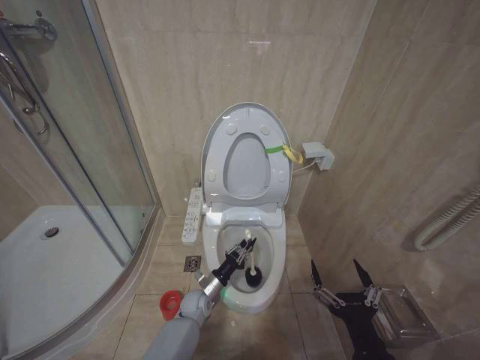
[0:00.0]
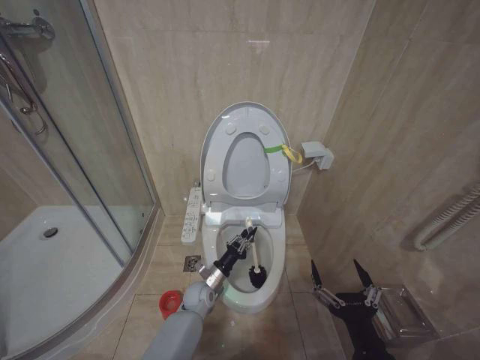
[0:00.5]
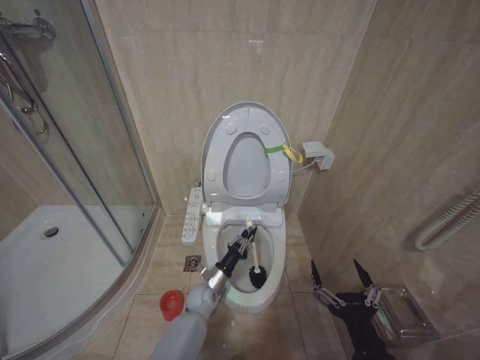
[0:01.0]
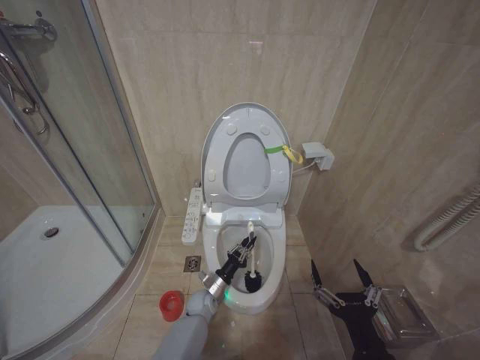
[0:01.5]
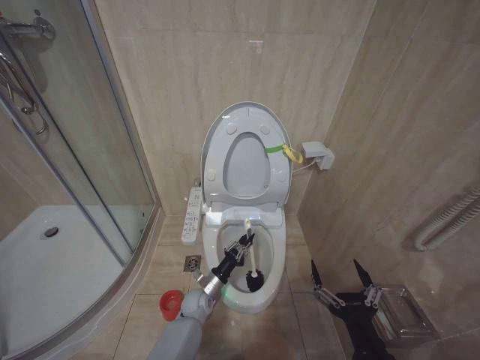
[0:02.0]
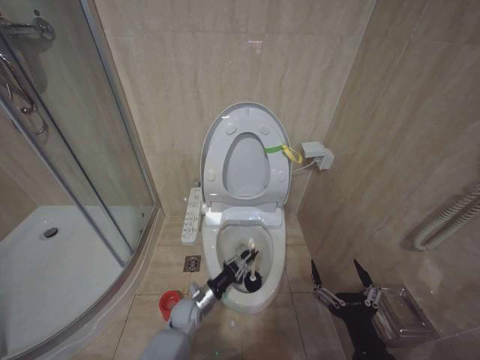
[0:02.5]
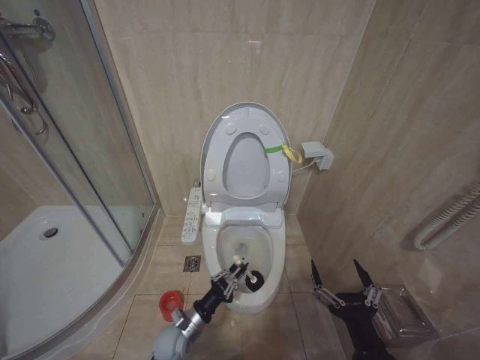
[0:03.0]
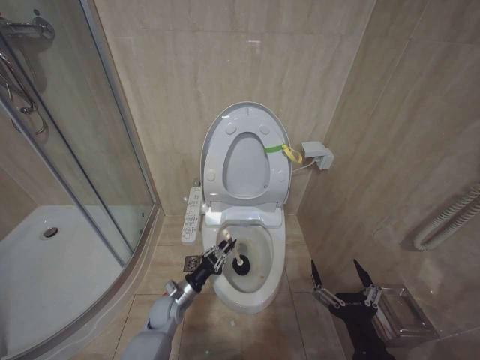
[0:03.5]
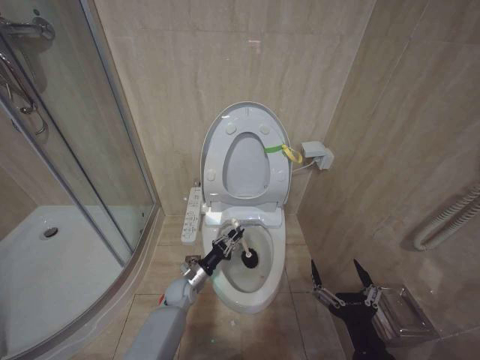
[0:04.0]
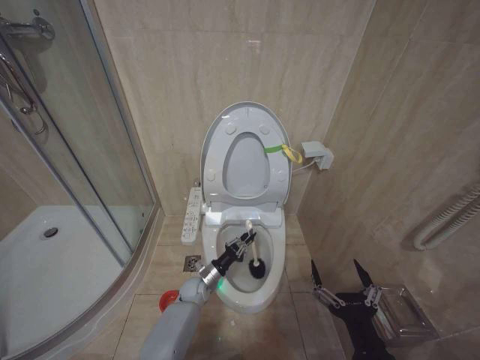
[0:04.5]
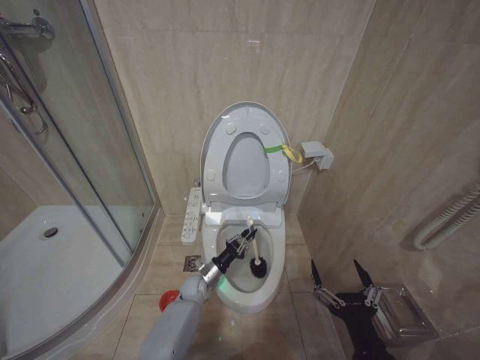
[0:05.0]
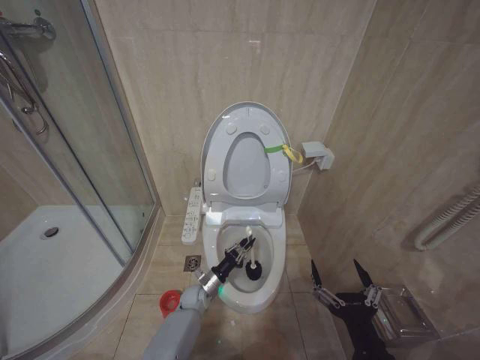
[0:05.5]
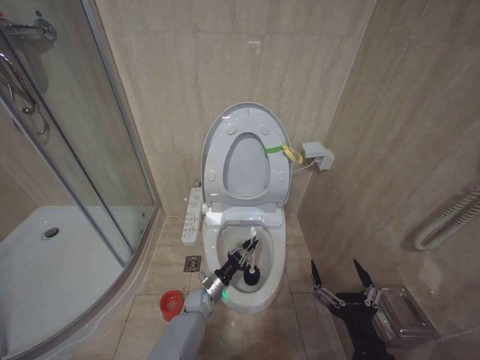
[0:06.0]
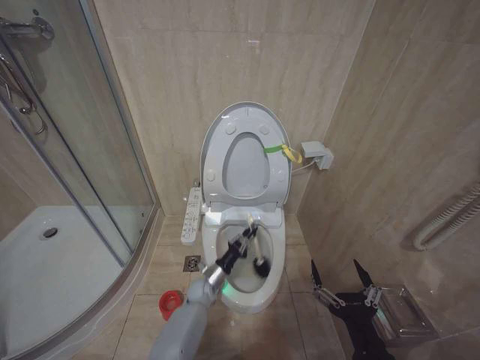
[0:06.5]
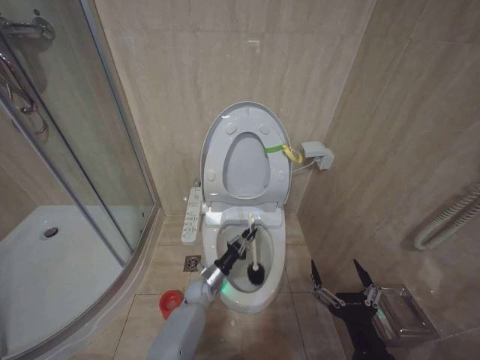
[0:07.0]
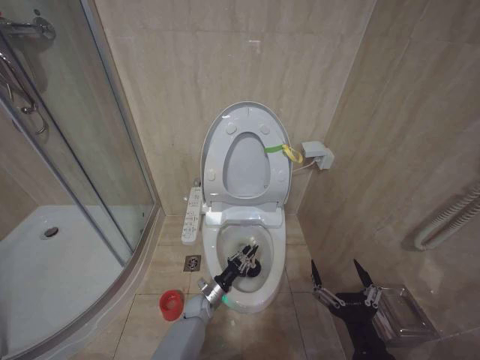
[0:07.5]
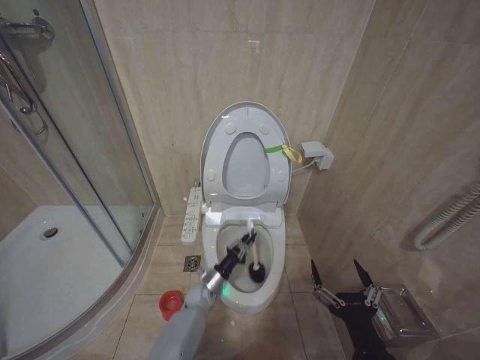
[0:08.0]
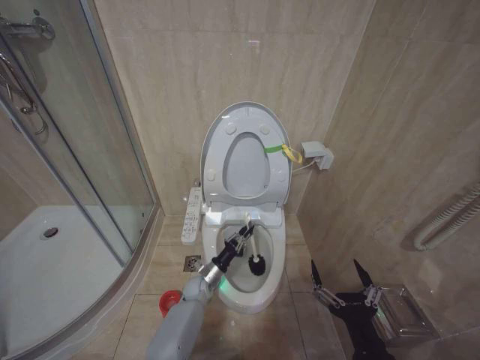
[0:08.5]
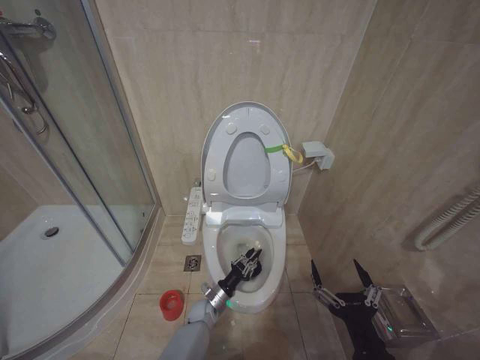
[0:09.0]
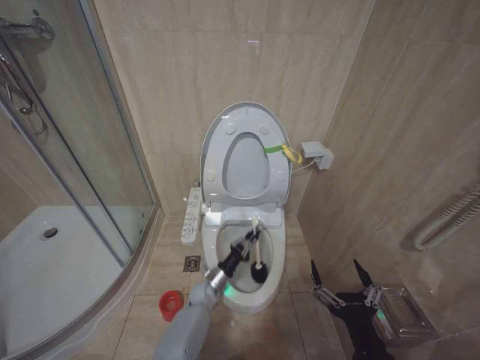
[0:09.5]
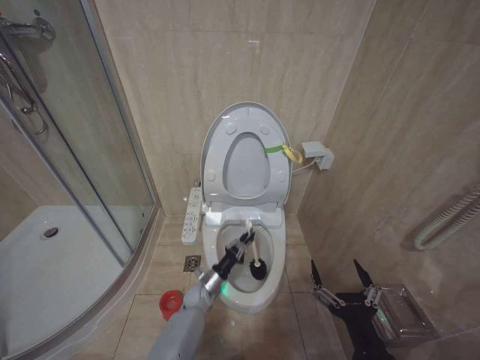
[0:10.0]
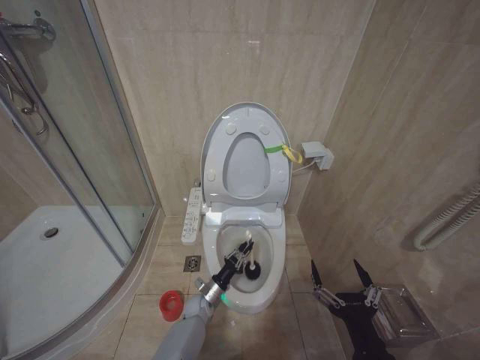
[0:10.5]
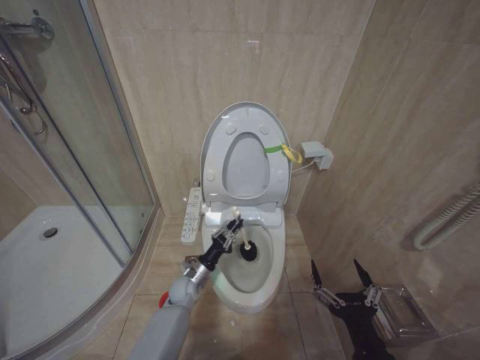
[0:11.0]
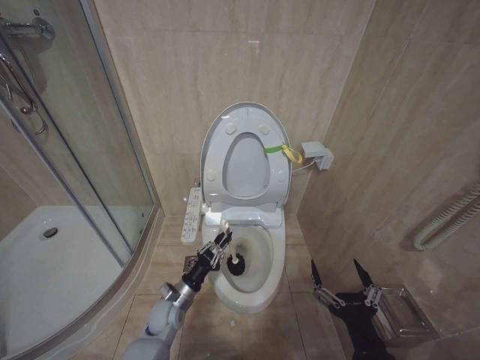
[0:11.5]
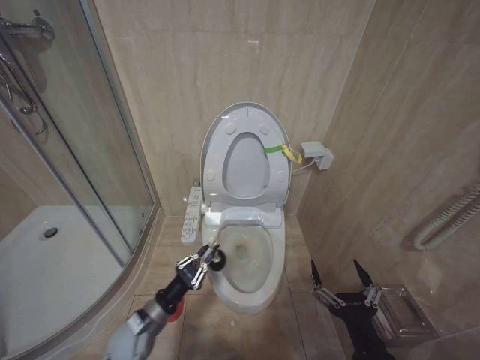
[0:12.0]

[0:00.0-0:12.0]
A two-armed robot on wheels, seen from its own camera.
Task of the whole recording: Open the toilet lid, clean the toilet bowl with a toilet brush, close the toilet lid, and flush.
0:02.0 to 0:04.0: The left gripper moves to the left, about 5 cm, and goes backward and returns, some 10 cm each way.
0:04.0 to 0:06.0: The left gripper heads to the right, covering roughly 5 cm.
0:06.0 to 0:08.0: The left gripper moves up and down over some 5 cm, changing direction 2 times.
0:10.0 to 0:12.0: The left gripper travels upward, backward and to the left by some 20 cm.

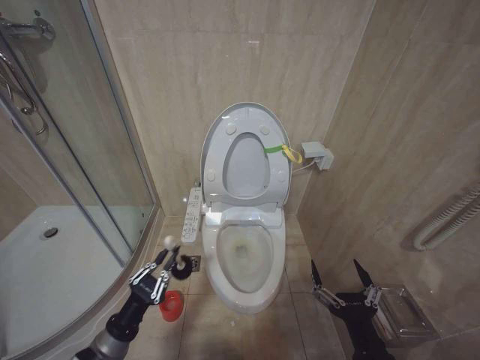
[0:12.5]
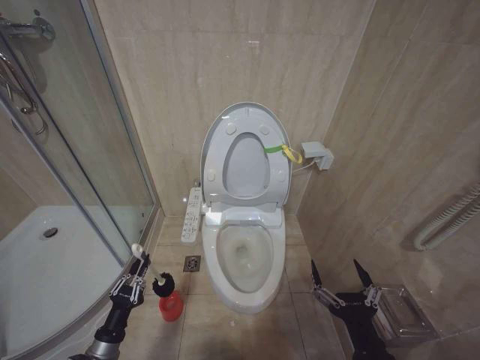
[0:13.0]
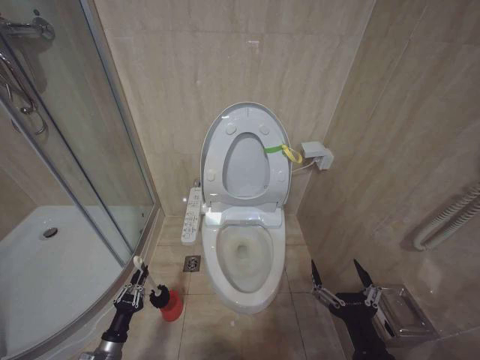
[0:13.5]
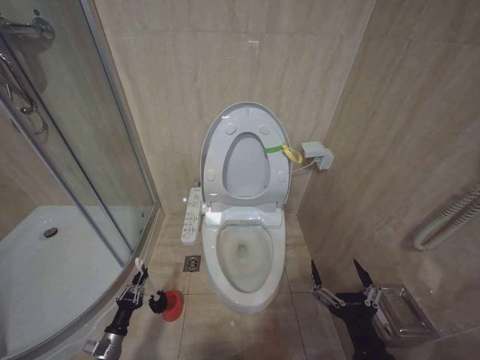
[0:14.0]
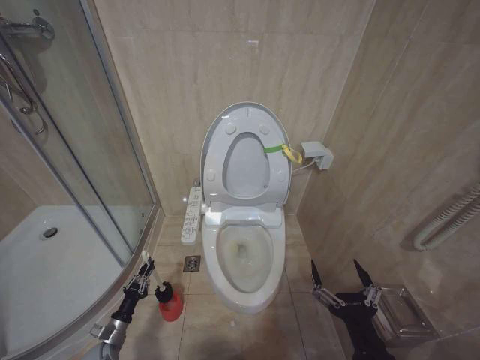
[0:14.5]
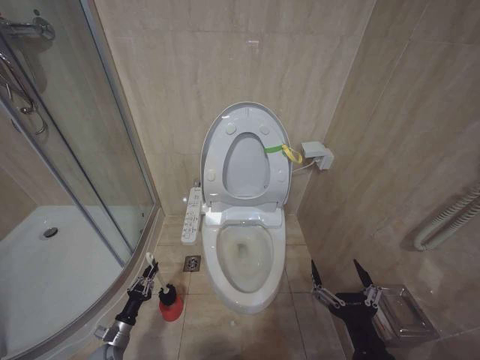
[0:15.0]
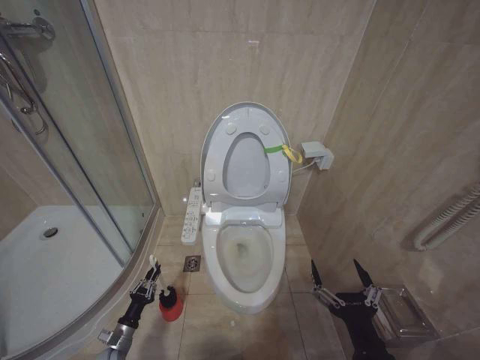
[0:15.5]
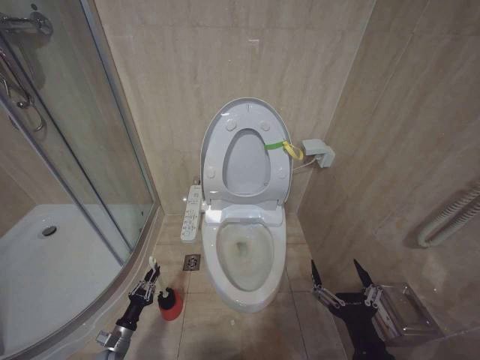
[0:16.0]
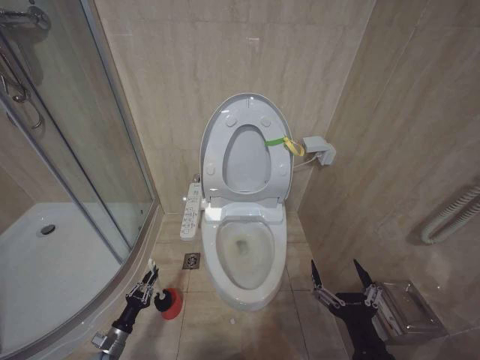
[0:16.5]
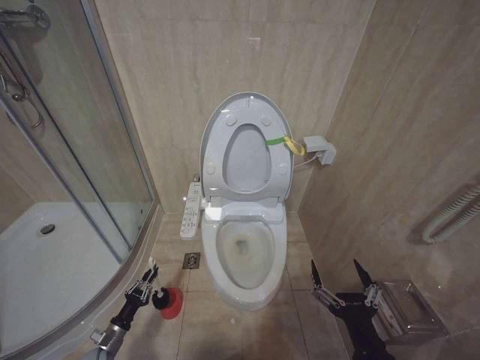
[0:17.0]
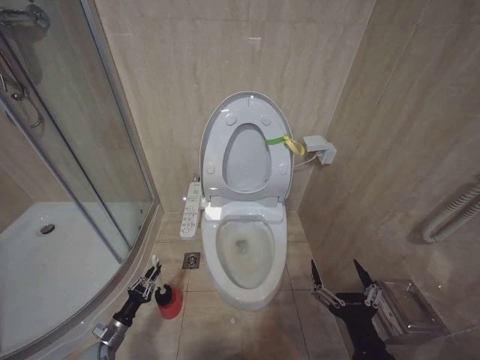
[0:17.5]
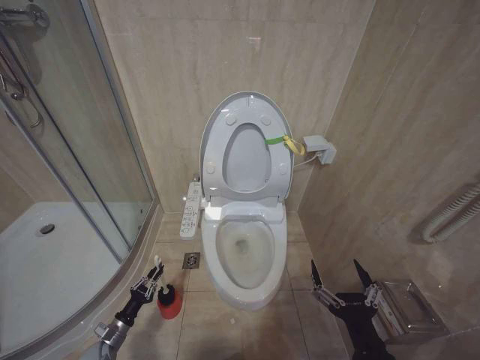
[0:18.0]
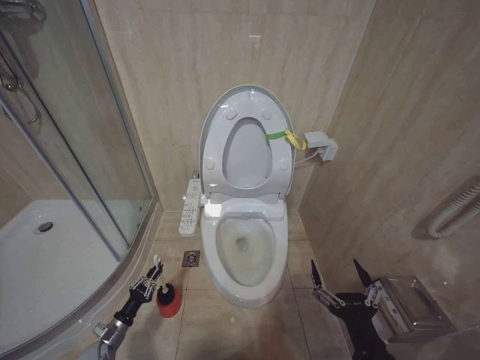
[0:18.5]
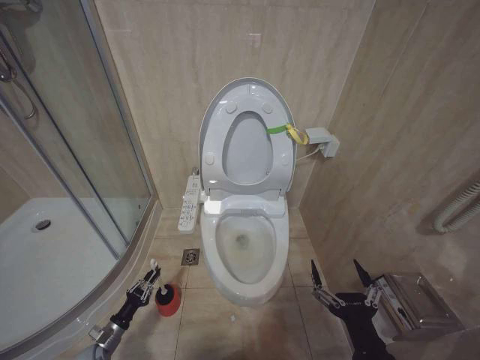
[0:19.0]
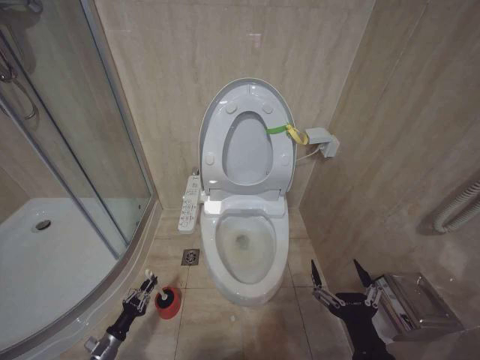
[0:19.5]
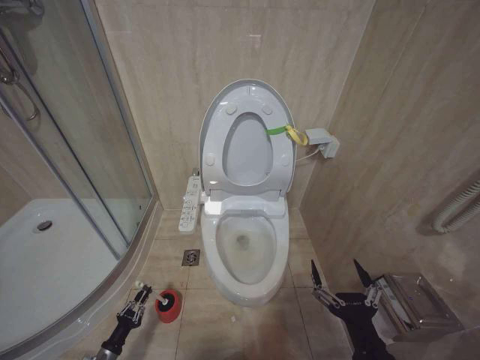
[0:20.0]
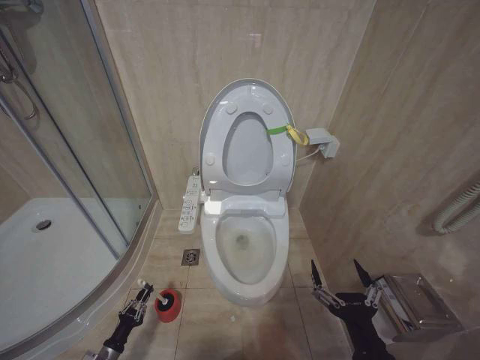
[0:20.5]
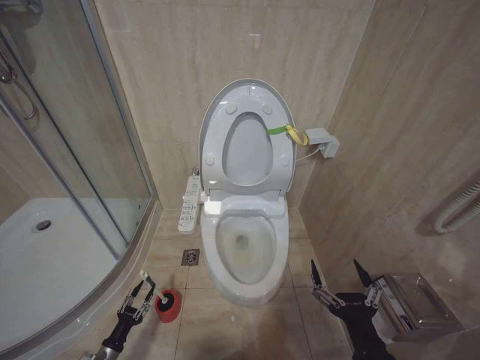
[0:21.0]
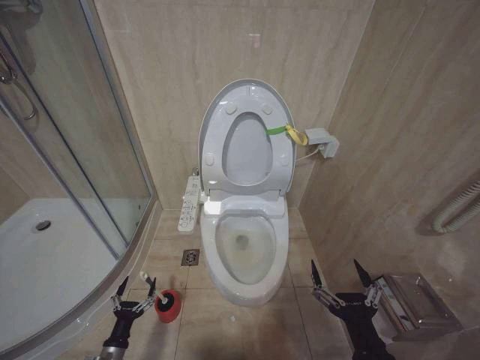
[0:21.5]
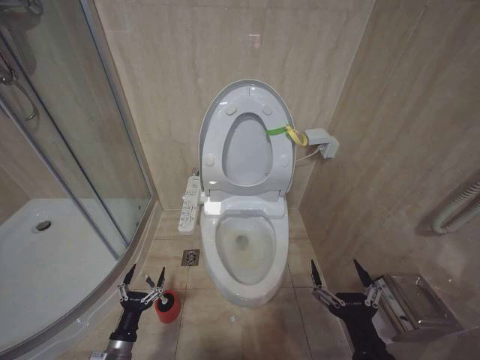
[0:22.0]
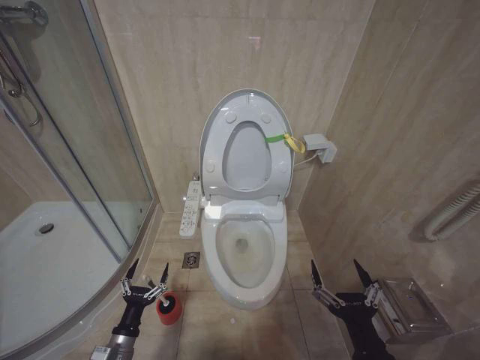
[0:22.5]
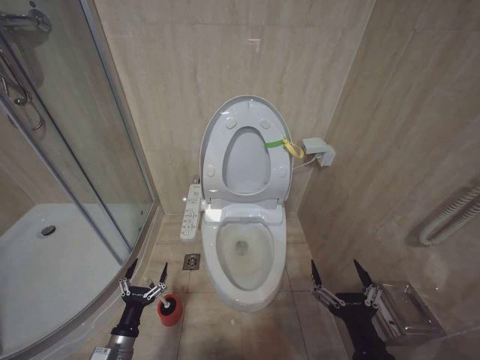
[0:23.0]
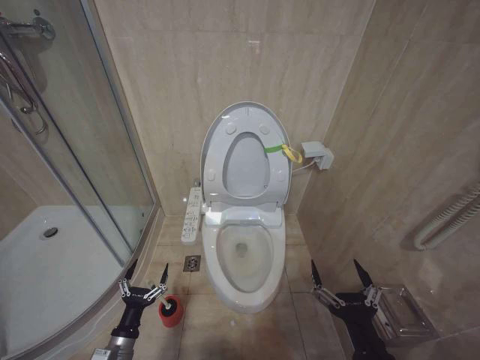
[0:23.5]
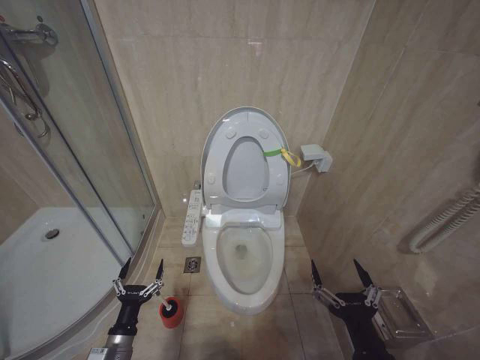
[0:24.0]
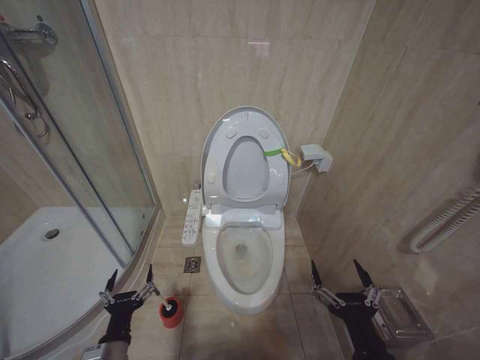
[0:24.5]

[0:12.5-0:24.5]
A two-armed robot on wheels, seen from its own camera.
Task of the whole recording: Open the toilet lid, clean the toilet bowl with a toilet brush, close the toilet lid, and flush.
0:12.5 to 0:14.5: The left gripper goes roughly 25 cm downward and to the left.
0:14.5 to 0:18.5: The grippers move only a little.
0:18.5 to 0:20.5: The left gripper travels backward by roughly 5 cm.
0:20.5 to 0:22.5: The left gripper moves upward and to the right, some 20 cm, and opens its fingers.
0:22.5 to 0:24.5: The left gripper heads upward, covering some 10 cm.

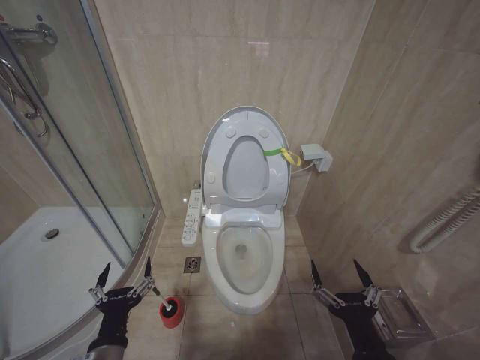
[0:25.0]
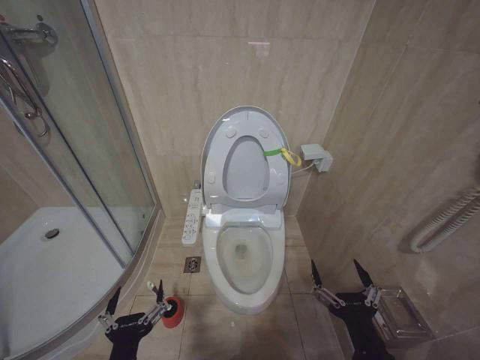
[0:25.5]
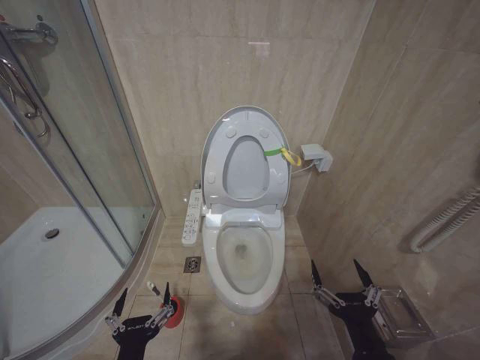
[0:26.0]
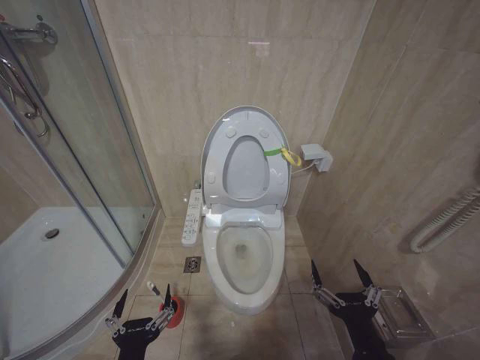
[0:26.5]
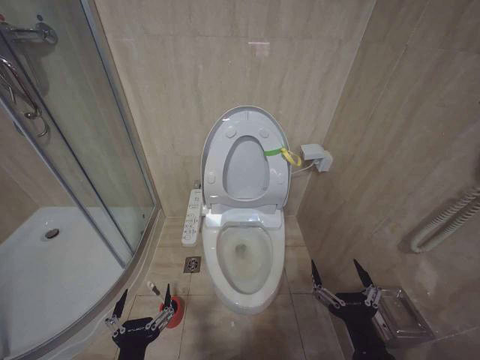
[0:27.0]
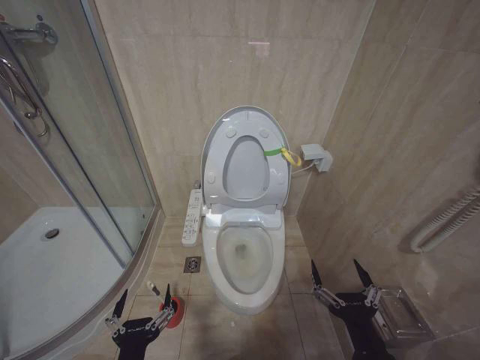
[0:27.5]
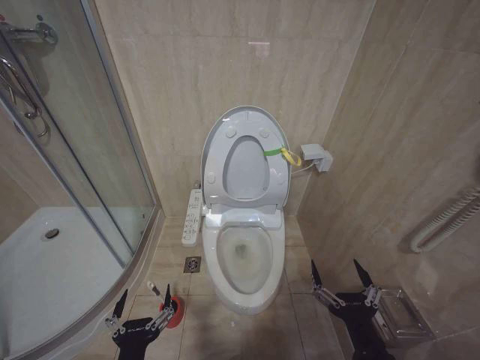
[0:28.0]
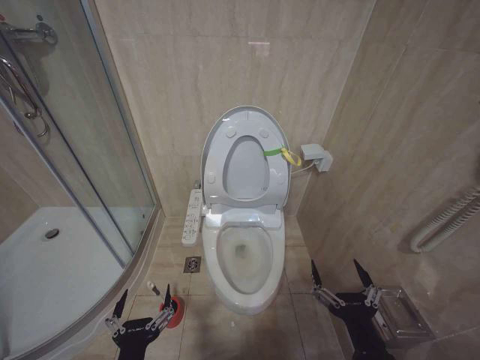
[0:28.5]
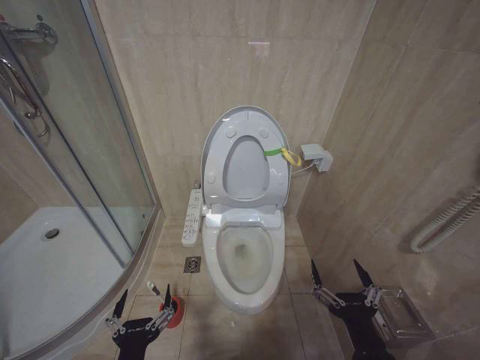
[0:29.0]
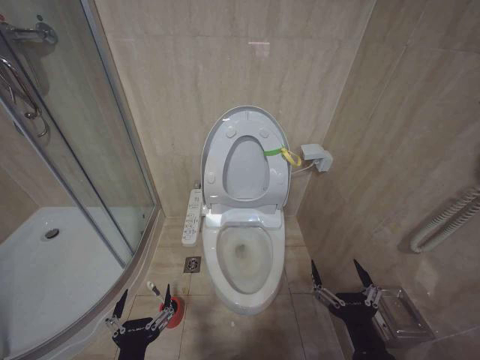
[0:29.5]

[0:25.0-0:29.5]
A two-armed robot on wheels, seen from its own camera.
Task of the whole recording: Open the toilet lid, clean the toilet bowl with a toilet brush, close the toilet lid, and flush.
0:25.0 to 0:27.0: The left gripper travels backward by roughly 5 cm.
0:27.0 to 0:29.5: Both grippers stay put.
